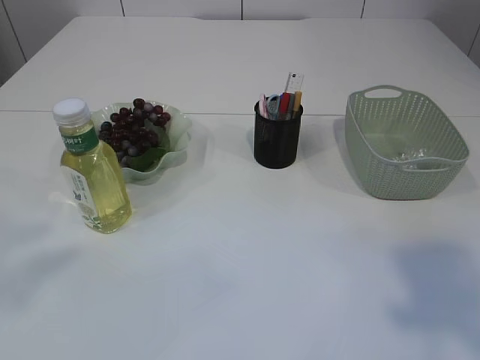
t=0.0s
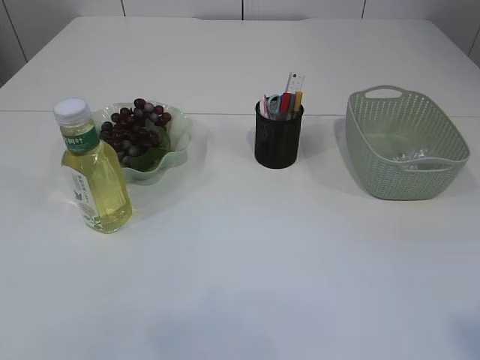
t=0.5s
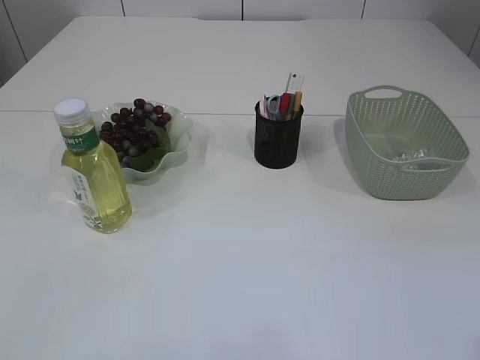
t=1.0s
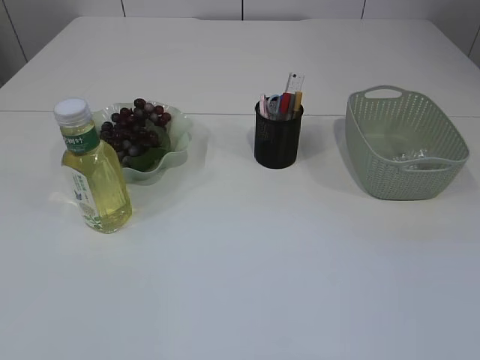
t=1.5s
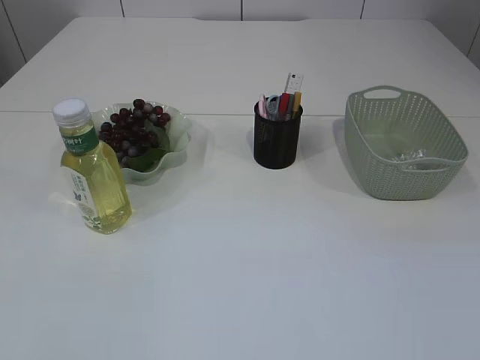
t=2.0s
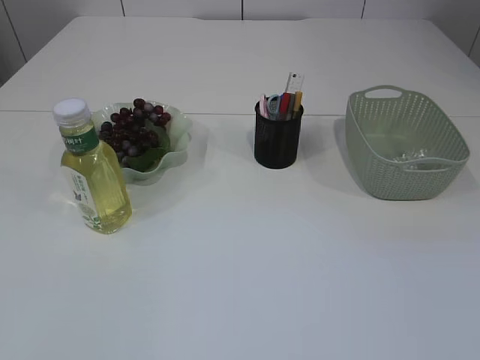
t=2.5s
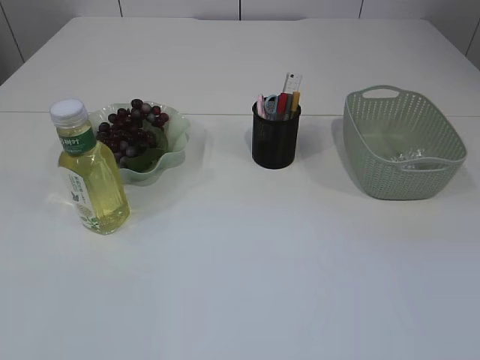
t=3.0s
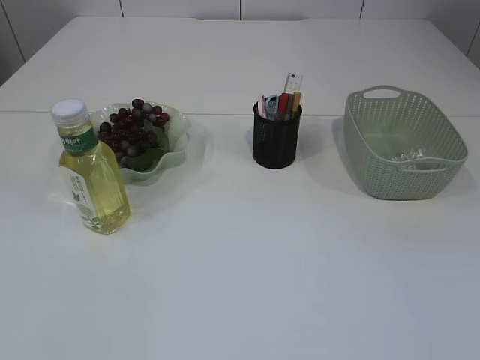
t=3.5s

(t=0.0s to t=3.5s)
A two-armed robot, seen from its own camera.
t=0.0s - t=2.0s: The right gripper shifts roughly 15 cm downward and backward.

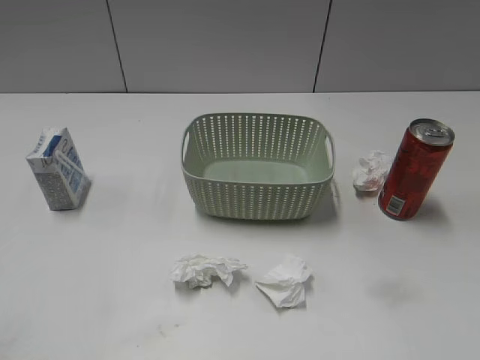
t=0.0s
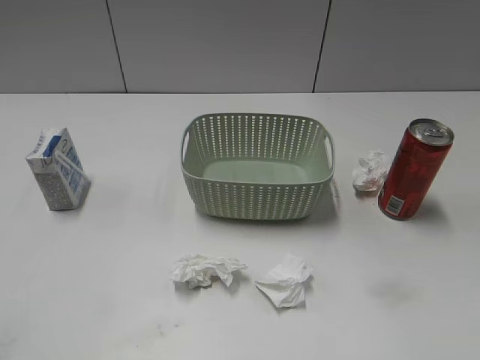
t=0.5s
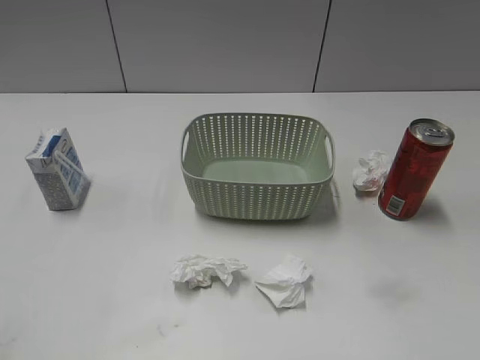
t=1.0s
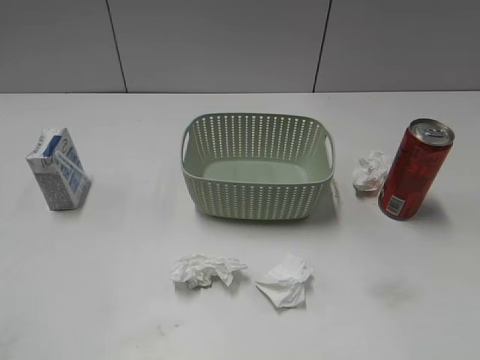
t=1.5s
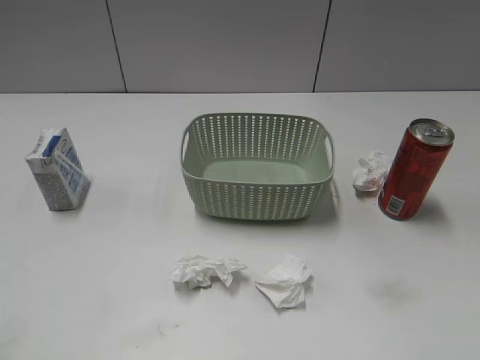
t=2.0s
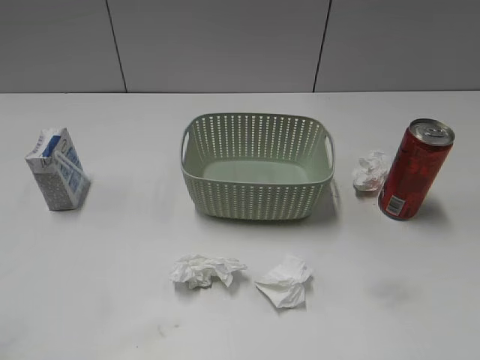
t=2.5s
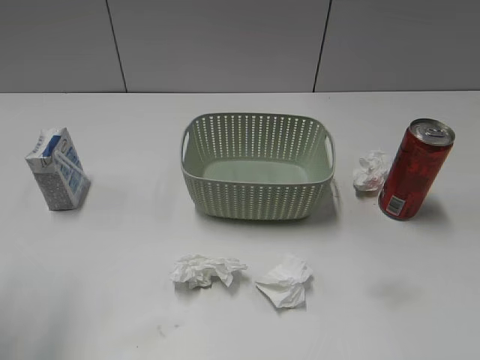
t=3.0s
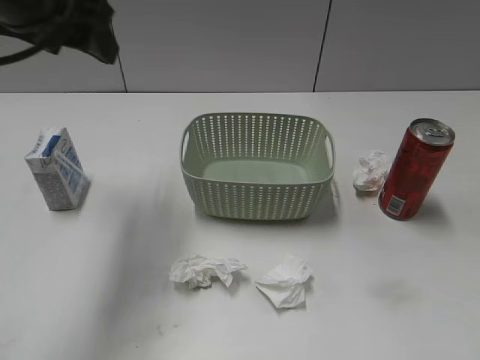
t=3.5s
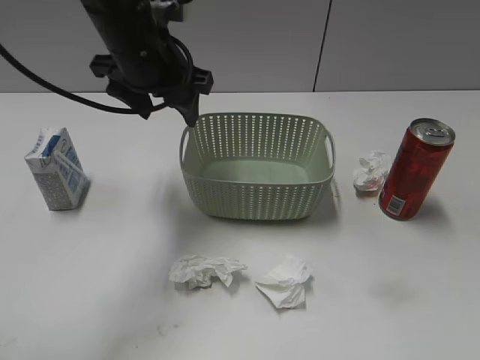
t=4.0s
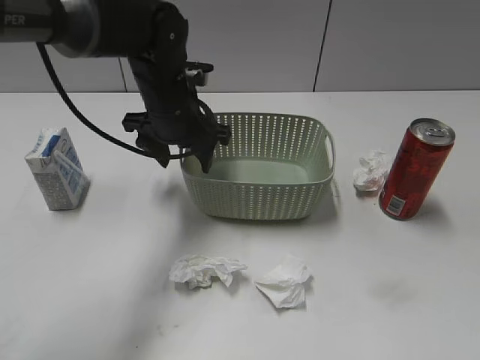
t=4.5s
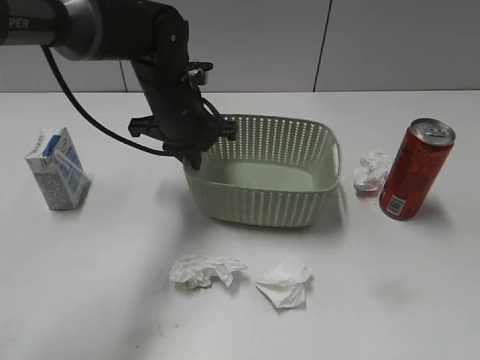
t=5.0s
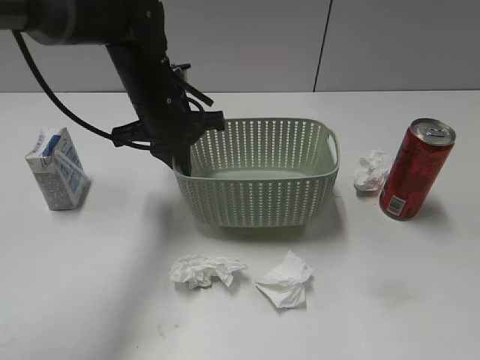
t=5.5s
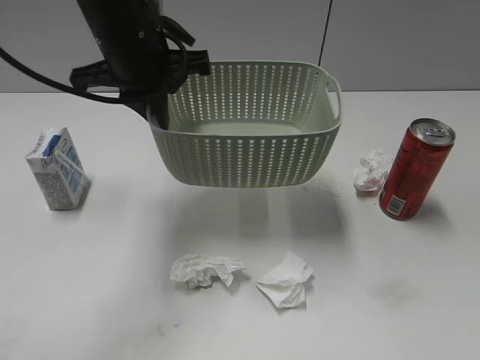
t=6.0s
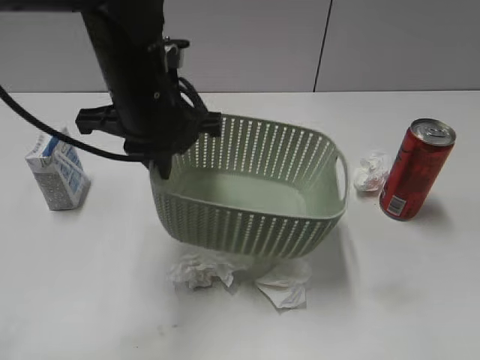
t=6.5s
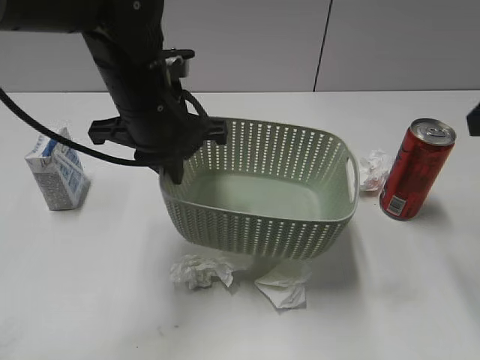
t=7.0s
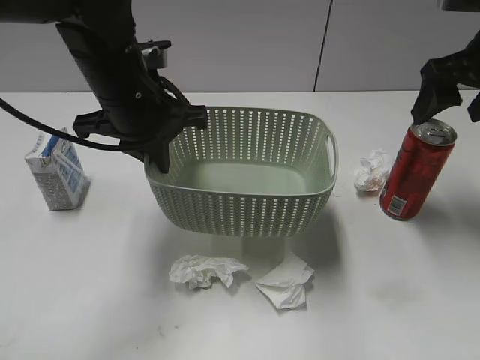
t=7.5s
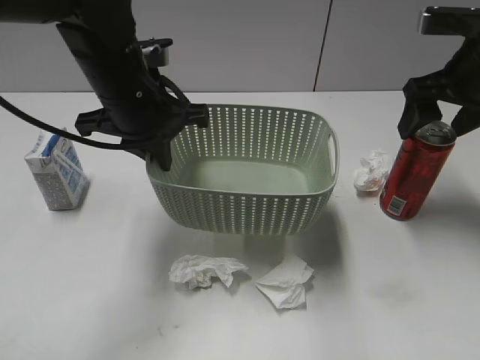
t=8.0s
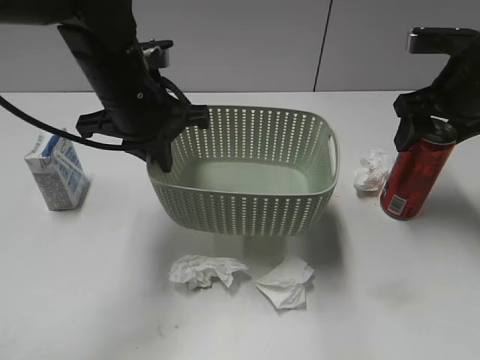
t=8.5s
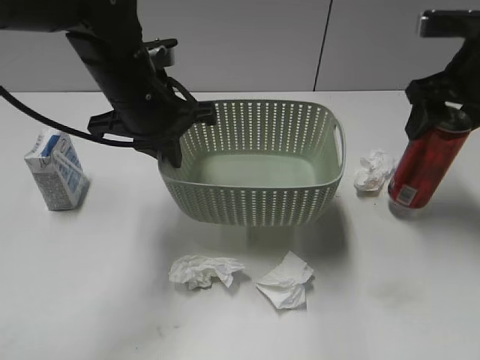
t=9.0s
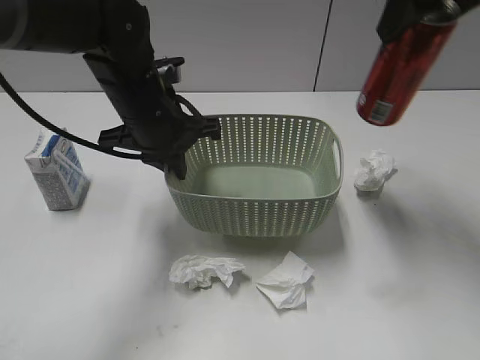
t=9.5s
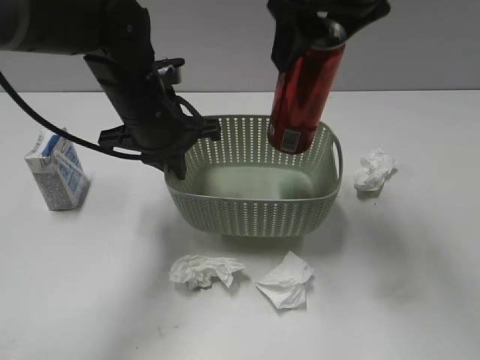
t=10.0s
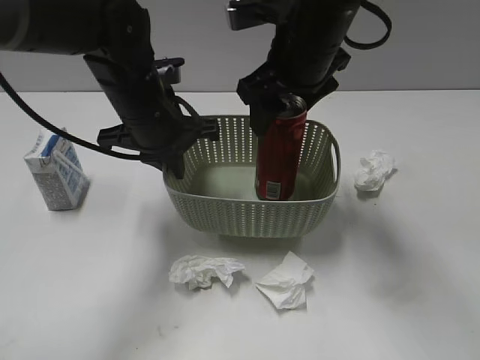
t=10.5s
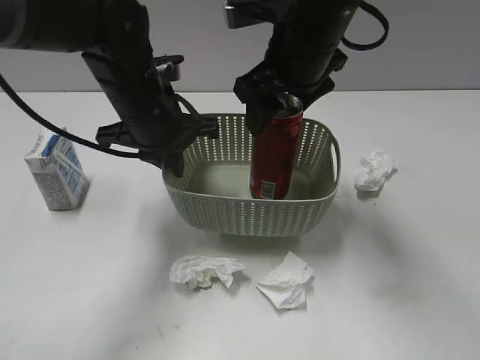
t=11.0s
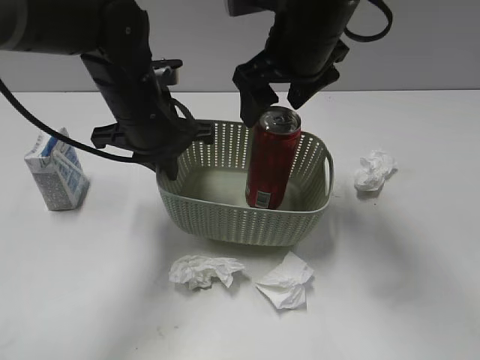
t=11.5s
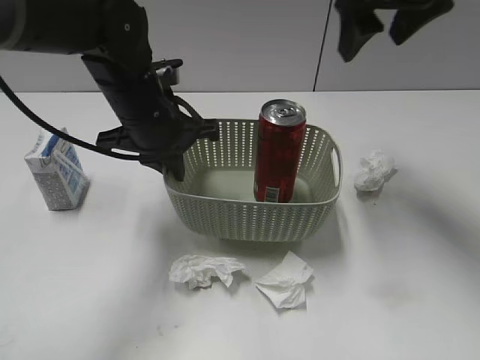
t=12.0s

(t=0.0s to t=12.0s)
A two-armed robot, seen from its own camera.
Step, t=3.5s - t=5.0s: Grasp the basket with left gripper.
Step, t=5.5s - t=6.5s: Lift the basket with left gripper.
Step, t=7.0s - t=8.5s: Grasp the cola can with right gripper.
Step, t=9.0s - t=11.0s: Place the cola can in the basket with right gripper.
t=2.0s - t=4.0s: The left gripper is displaced forward and to the right by approximately 40 cm.
t=4.0s - t=6.0s: The left gripper goes downward and returns, roughly 10 cm each way, and closes up.
t=6.0s - t=8.0s: The left gripper moves approximately 5 cm, while the right gripper heads forward, covering roughly 35 cm, and opens its fingers.
t=8.0s - t=10.0s: The right gripper shifts approximately 20 cm to the left and upward, and closes up.
t=10.0s - t=12.0s: The right gripper shifts roughly 10 cm to the right and forward, and opens.

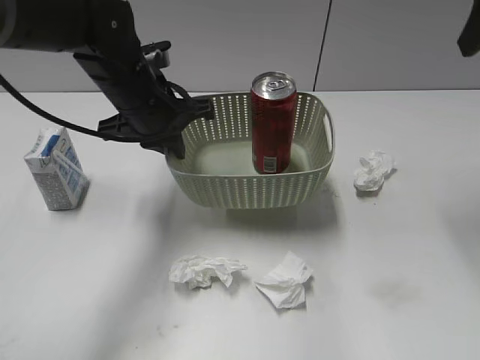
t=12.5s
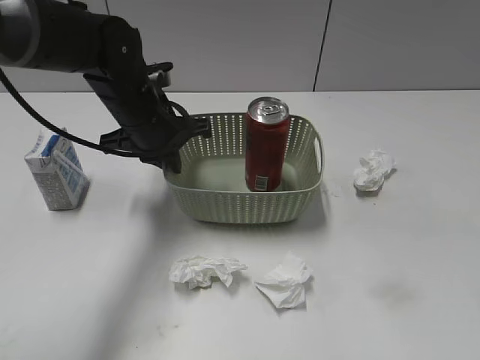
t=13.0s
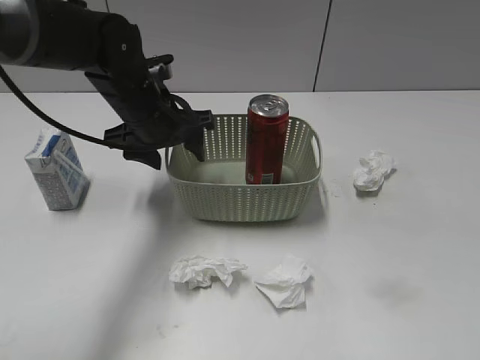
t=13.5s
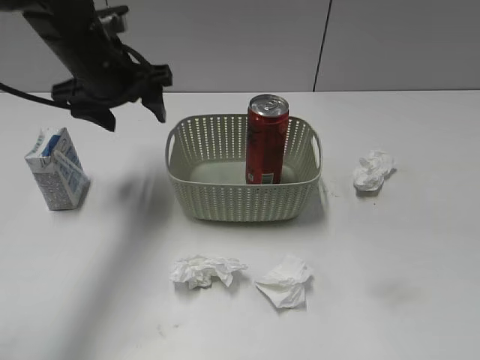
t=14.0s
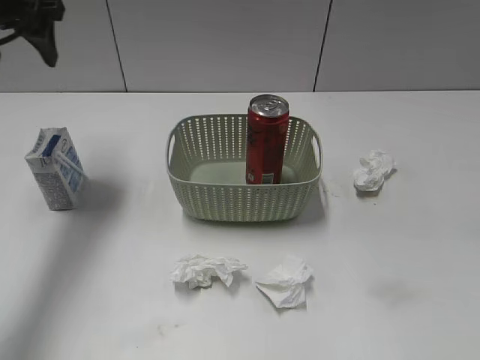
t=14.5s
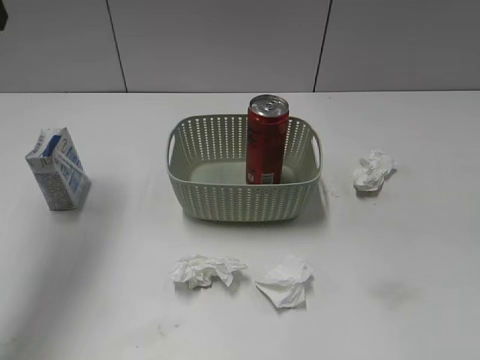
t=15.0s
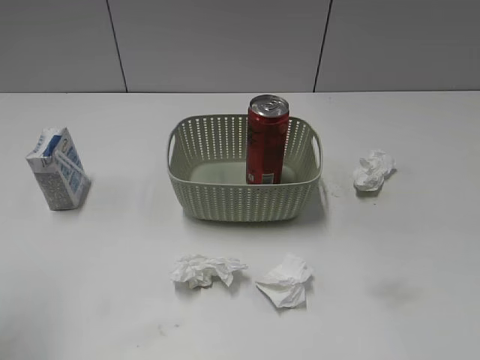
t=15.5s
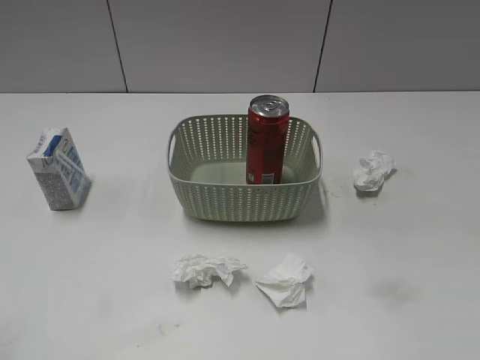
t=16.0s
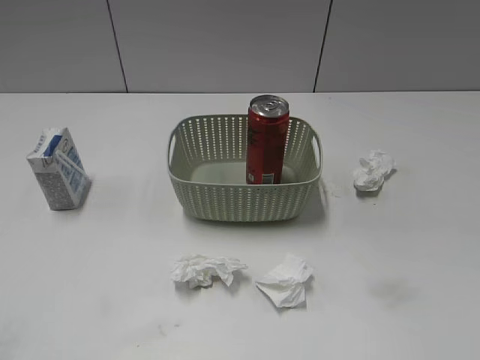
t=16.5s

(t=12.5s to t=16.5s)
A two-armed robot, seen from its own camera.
t=12.5s - t=14.5s: The right gripper moves backward, some 30 cm. Meanwhile the left gripper travels to the left and upward by some 20 cm, and opens.
t=14.5s - t=16.5s: The left gripper goes some 40 cm backward.

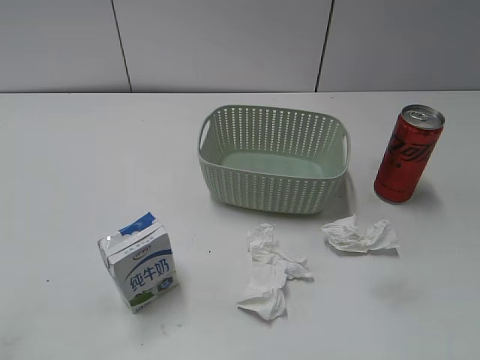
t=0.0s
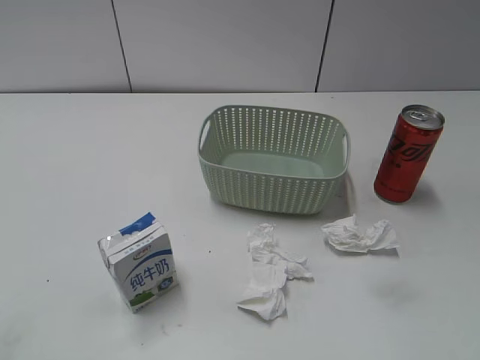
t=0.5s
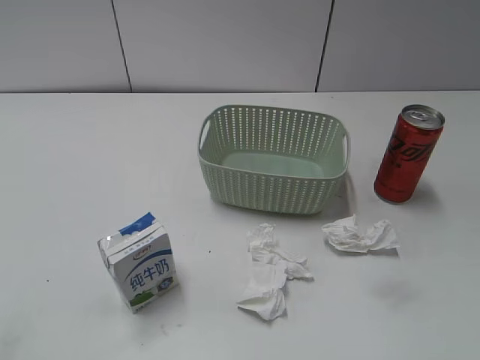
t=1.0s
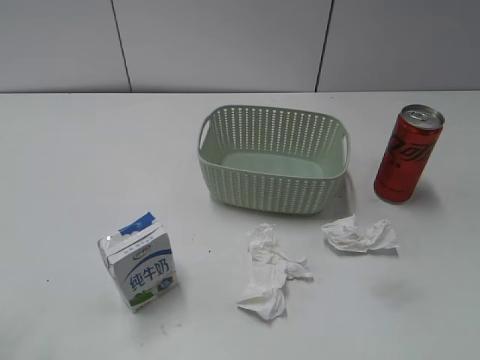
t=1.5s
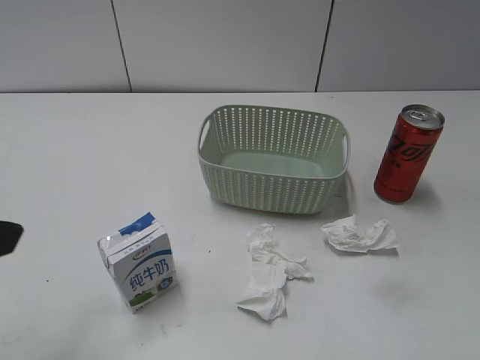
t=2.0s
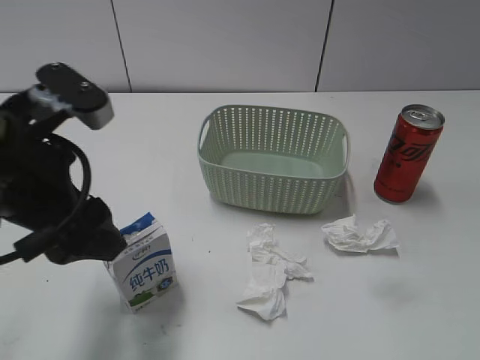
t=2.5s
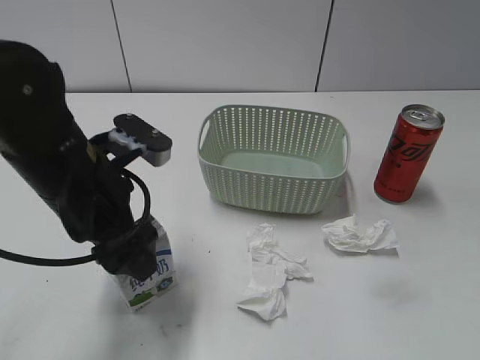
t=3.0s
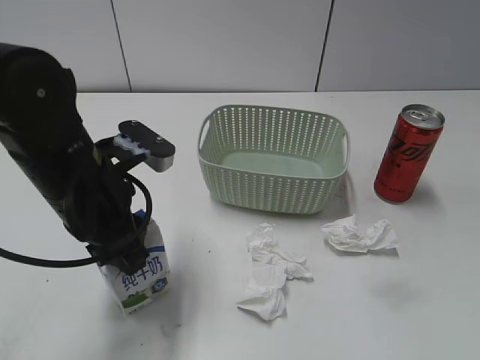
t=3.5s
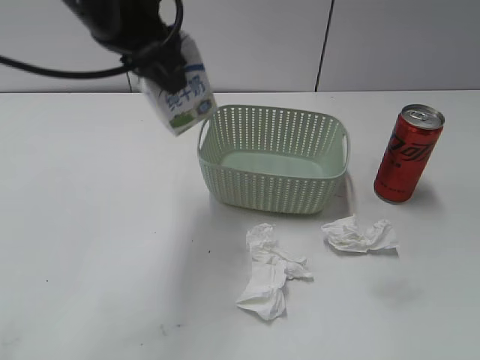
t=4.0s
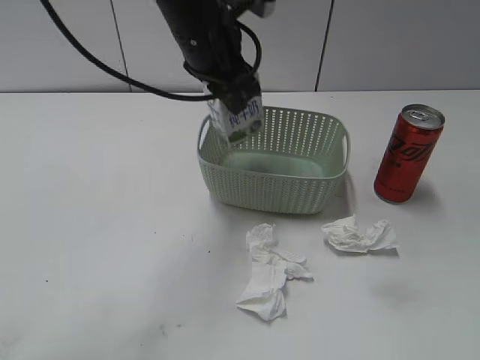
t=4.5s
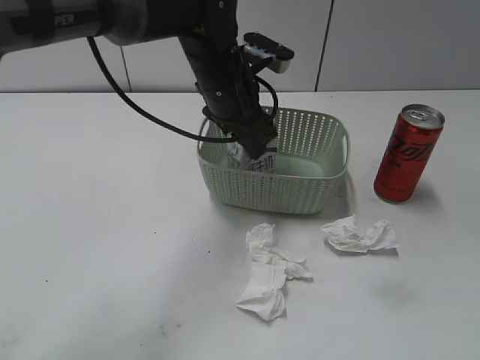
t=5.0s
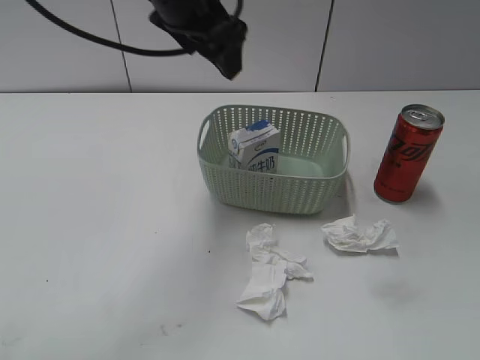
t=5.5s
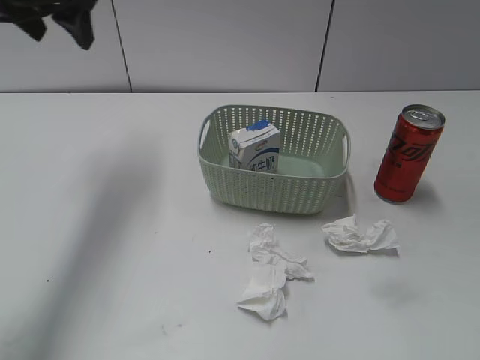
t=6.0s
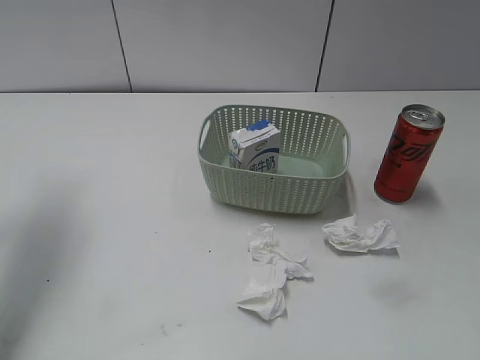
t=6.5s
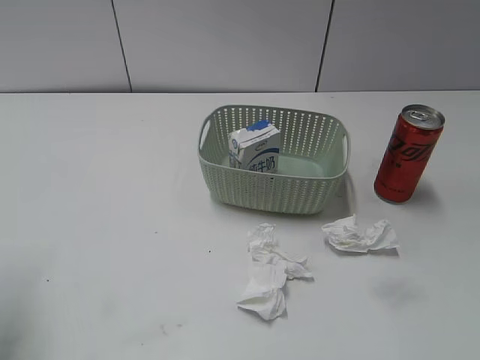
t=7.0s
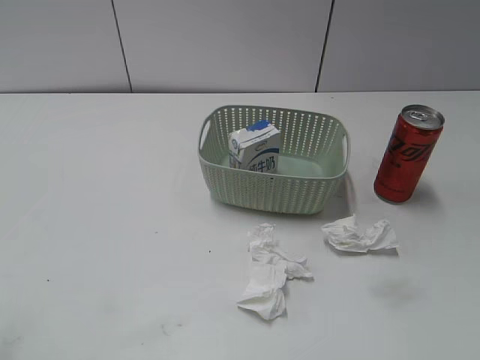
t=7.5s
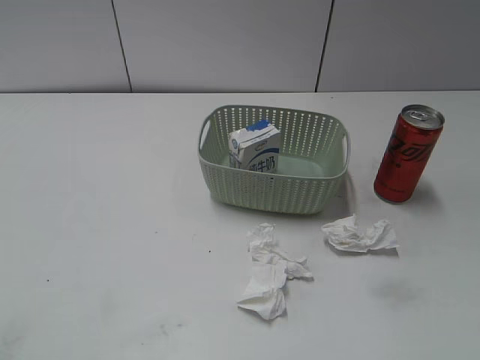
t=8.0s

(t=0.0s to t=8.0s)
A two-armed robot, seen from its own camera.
Step, t=2.0s - t=3.0s: Grasp the milk with left gripper.
Step, t=3.5s - t=5.5s: Place the milk in the basket with left gripper.
t=2.0s - t=4.0s: The left gripper travels forward and to the right by about 25 cm, and closes its fingers.
t=4.0s - t=6.0s: The left gripper shifts approximately 15 cm forward and to the left, and opens.
t=6.0s - t=8.0s: The left gripper goes about 40 cm backward.
